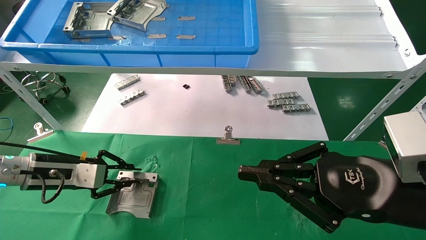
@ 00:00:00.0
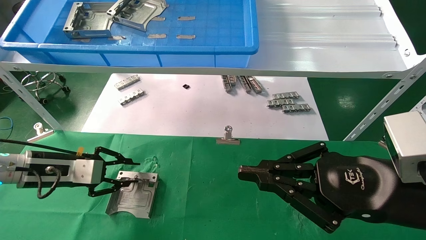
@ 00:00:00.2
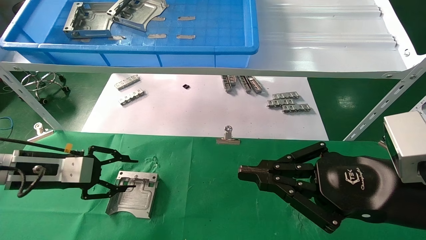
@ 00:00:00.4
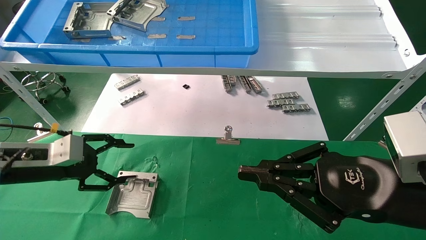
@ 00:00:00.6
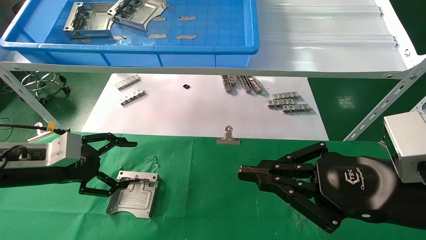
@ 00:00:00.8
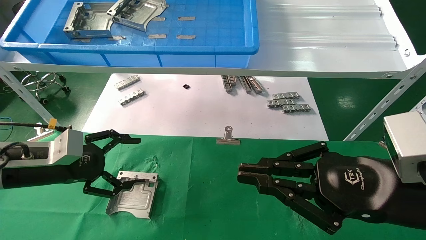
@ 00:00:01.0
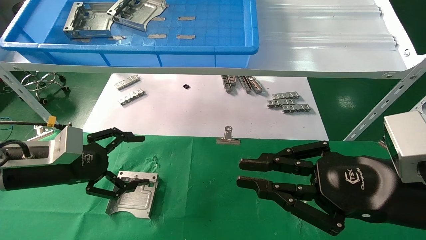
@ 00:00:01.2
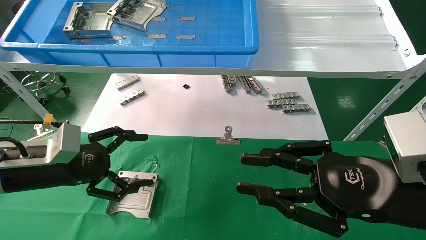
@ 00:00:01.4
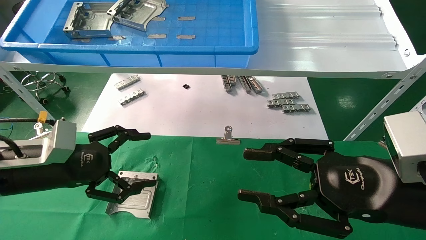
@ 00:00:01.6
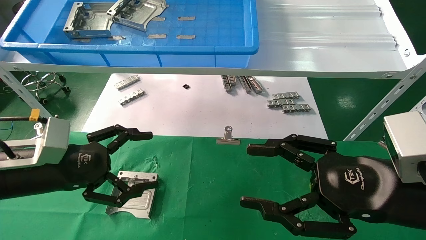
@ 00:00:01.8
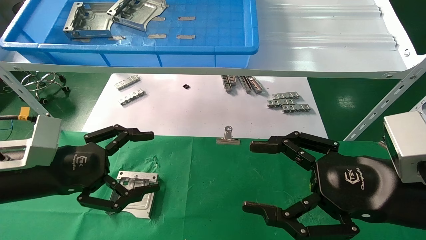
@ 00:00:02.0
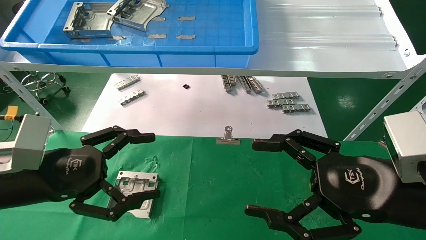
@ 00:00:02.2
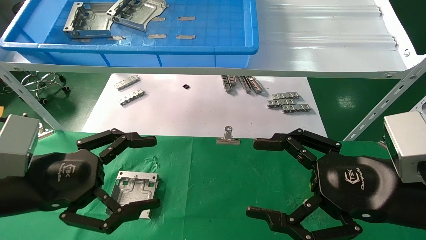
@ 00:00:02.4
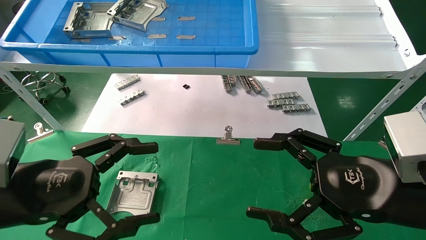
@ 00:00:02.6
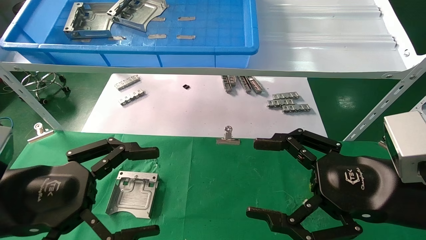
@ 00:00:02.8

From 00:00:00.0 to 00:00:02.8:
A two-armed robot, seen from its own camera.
Task of the whole recording: use the mechanical arm to pick up the parts and place them on the table.
From 00:00:00.0 to 00:00:01.4: The left gripper heads backward, covering roughly 5 cm, and opens.
From 00:00:01.4 to 00:00:02.8: The left gripper moves backward, about 10 cm; the right gripper opens its fingers.
